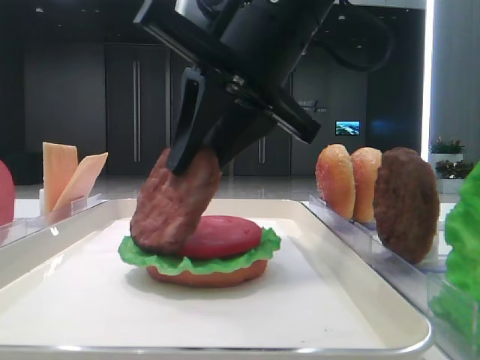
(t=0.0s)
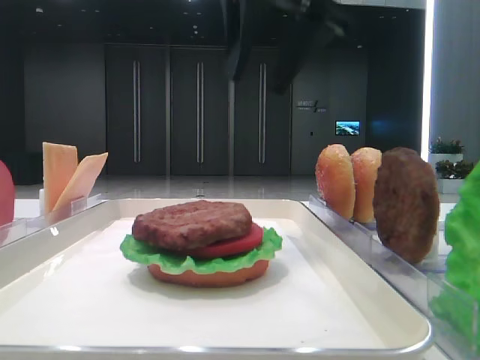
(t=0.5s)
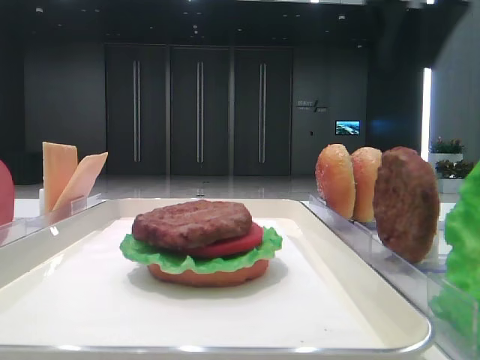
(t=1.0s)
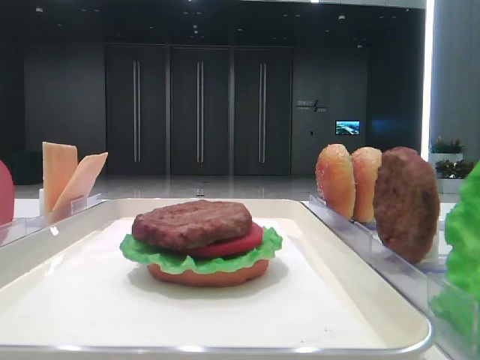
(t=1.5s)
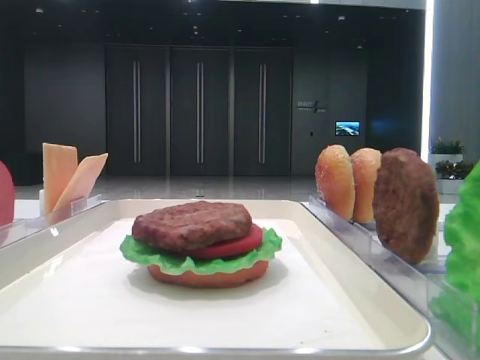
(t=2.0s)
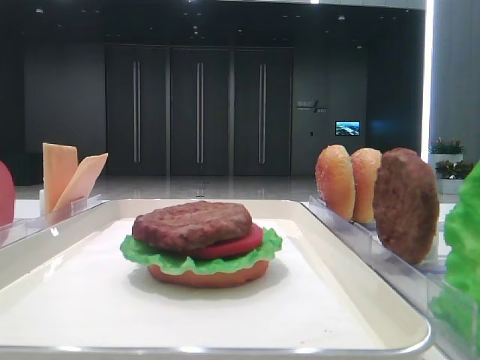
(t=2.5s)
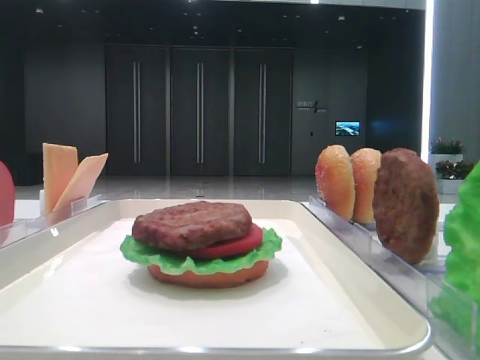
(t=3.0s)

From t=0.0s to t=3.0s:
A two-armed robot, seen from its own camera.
From t=0.0s to t=1.5s: The right gripper moves to the right, roughly 30 cm, and opens its fingers.
From t=1.5s to t=3.0s: The right gripper goes approximately 35 cm backward.

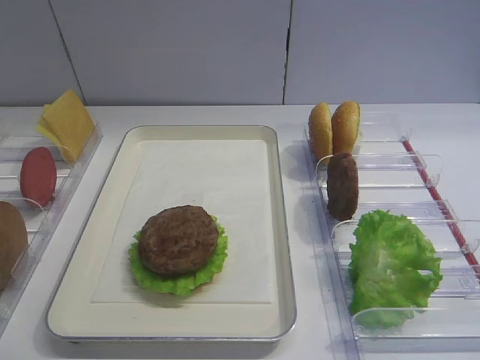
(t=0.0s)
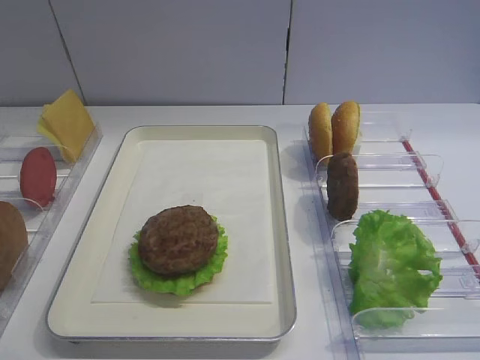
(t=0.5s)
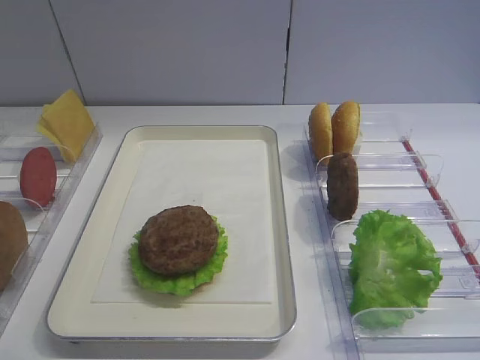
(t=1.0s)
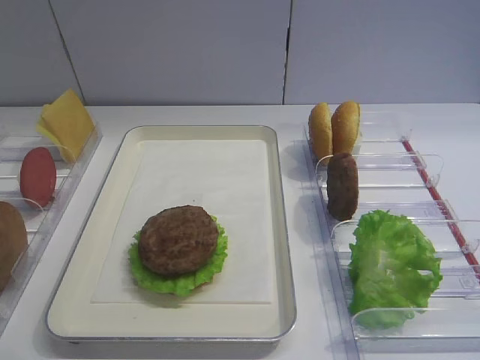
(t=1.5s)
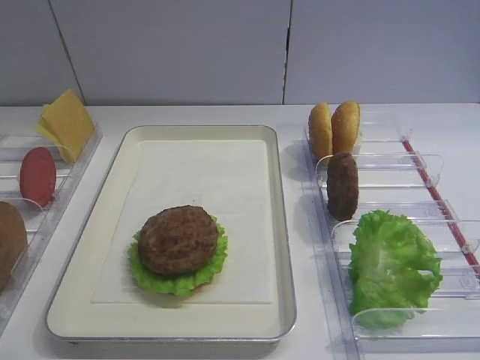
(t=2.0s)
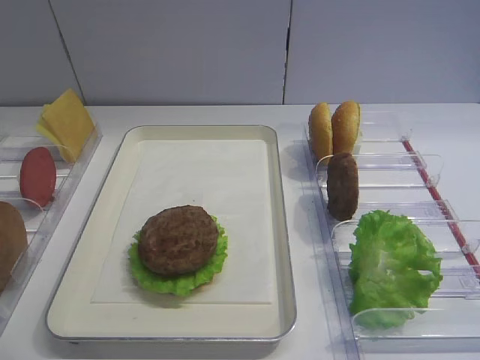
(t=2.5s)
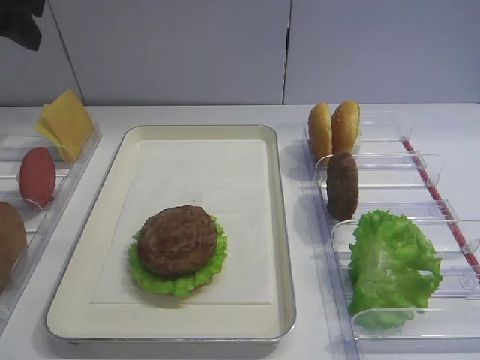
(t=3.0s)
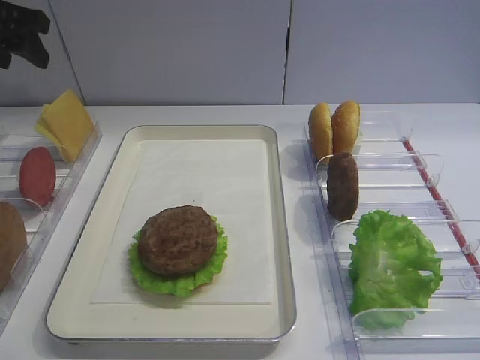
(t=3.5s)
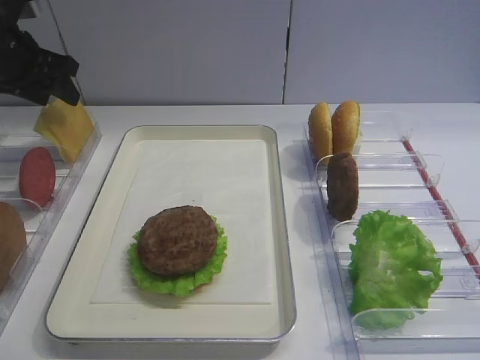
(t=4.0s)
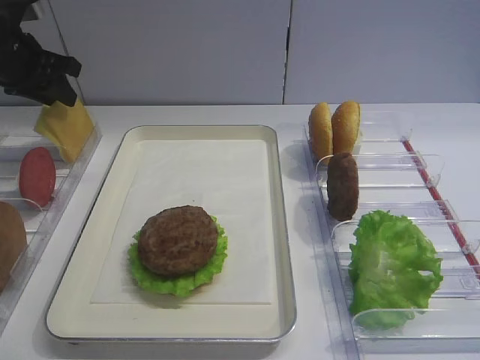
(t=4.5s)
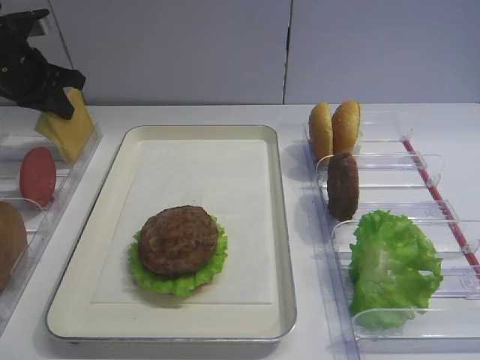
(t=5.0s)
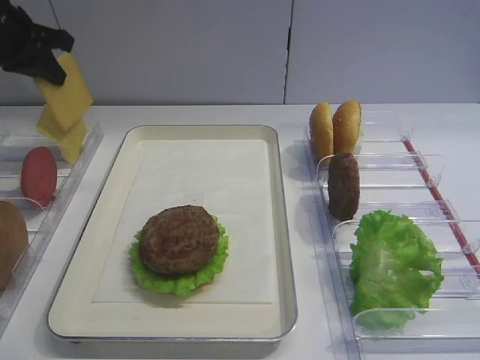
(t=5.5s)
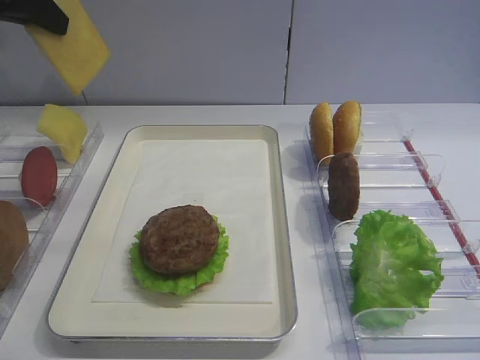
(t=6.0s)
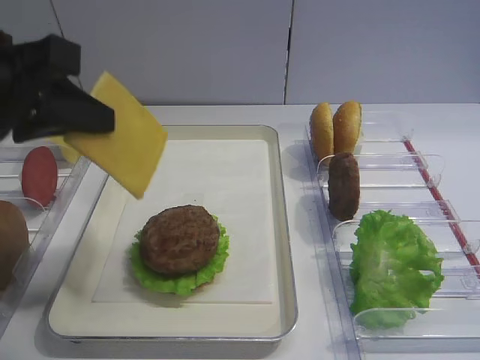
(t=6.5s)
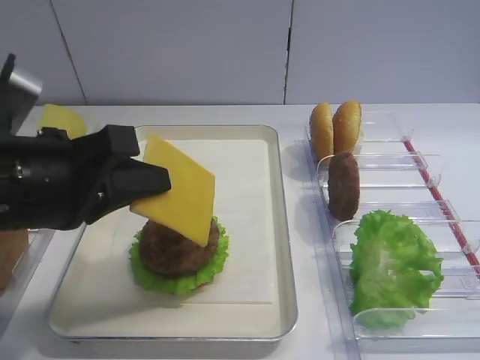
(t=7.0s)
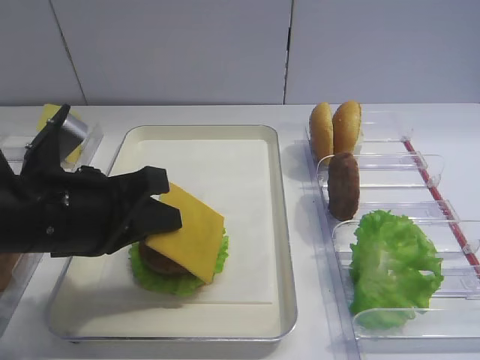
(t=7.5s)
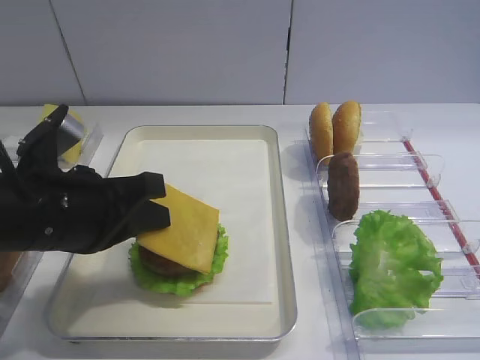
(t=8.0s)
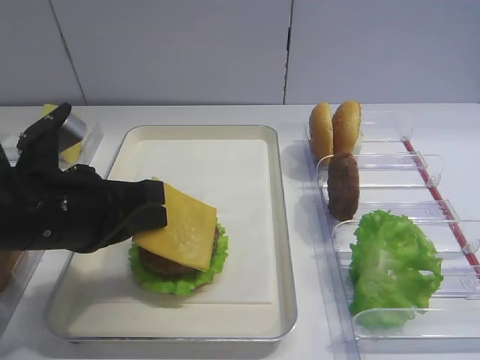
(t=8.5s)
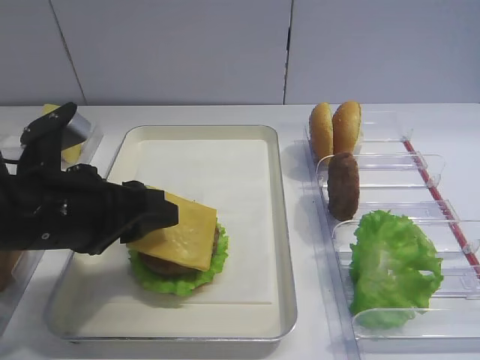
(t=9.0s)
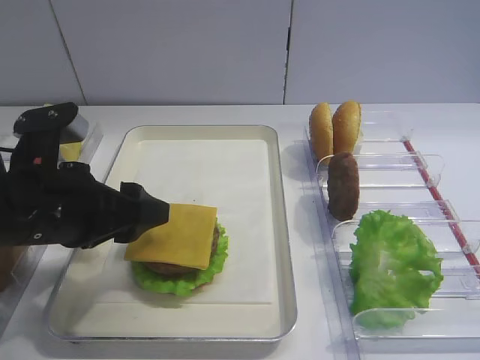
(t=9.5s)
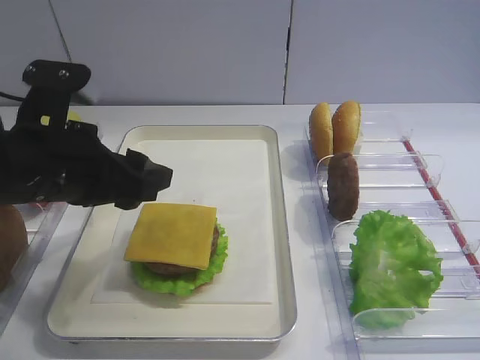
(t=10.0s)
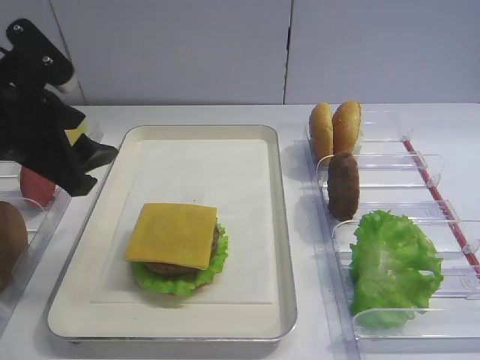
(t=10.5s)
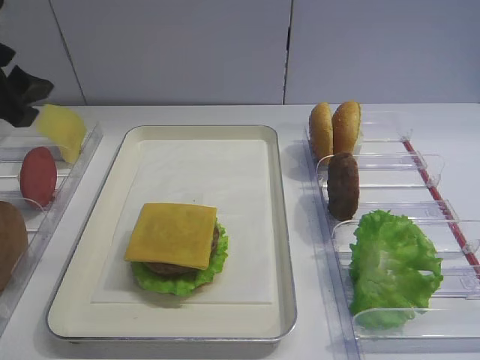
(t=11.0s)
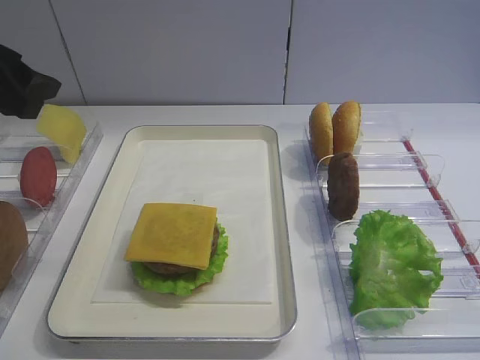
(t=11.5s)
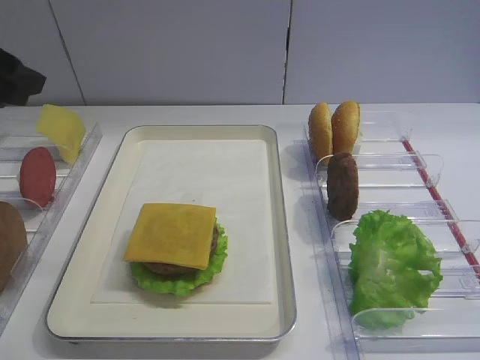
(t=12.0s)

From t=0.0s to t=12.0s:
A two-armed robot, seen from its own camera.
Step, from t=0.0s to t=5.0s: Pick up the cheese slice with the left gripper.
Step, from t=5.5s to t=9.5s: Place the cheese slice on the cutlet with the left gripper.
From t=2.0s to t=4.0s: The left gripper is displaced forward by some 40 cm.
From t=4.0s to t=6.0s: The left gripper goes roughly 15 cm upward and backward, and closes up.
From t=6.0s to t=8.0s: The left gripper is displaced downward, backward and to the right by about 25 cm.
From t=8.0s to t=10.0s: The left gripper opens up.
From t=10.0s to t=12.0s: The left gripper shifts approximately 15 cm to the left, upward and forward.

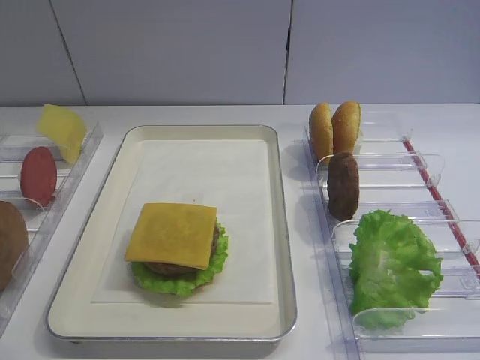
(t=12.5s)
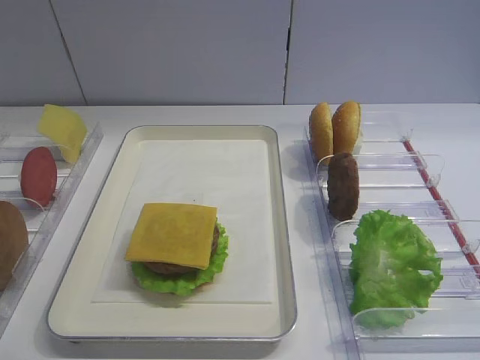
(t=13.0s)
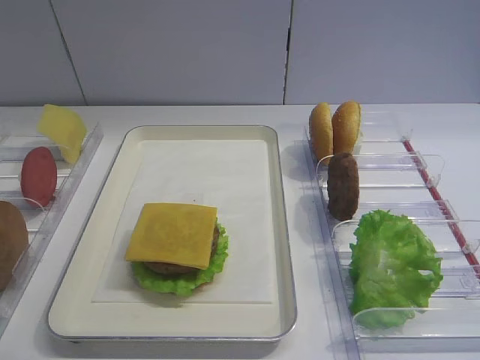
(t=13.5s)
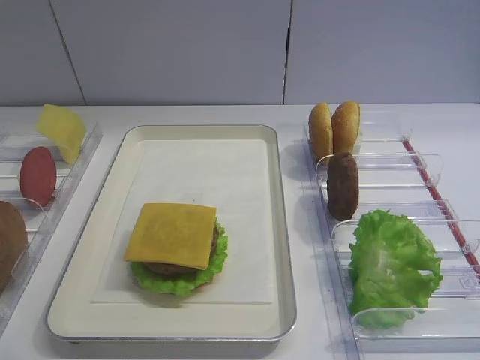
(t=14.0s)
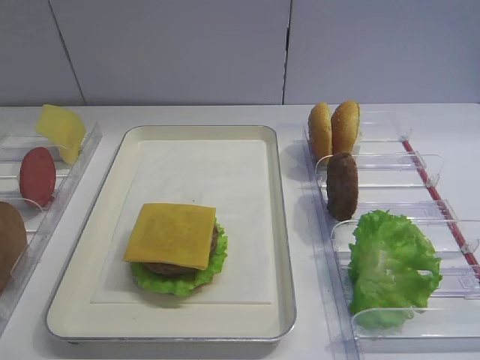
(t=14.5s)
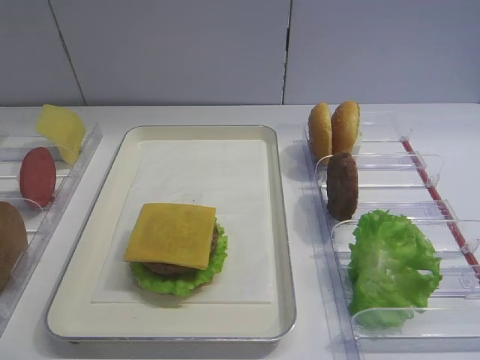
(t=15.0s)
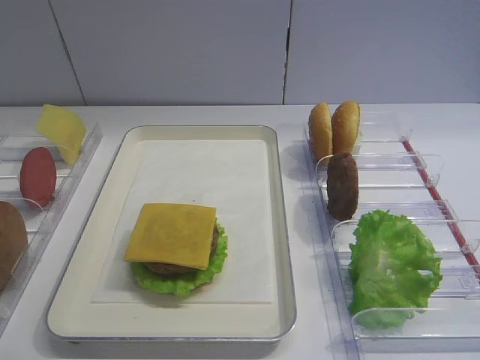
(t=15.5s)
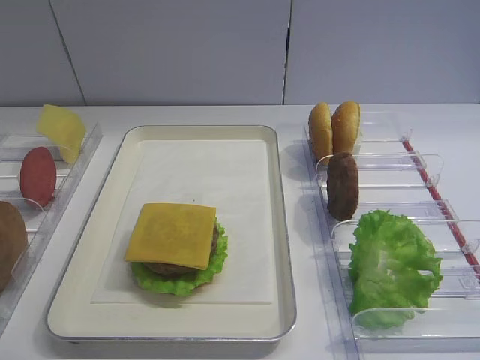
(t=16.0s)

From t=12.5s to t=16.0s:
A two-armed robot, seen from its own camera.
From t=14.5s to t=16.0s: Neither gripper changes place.
